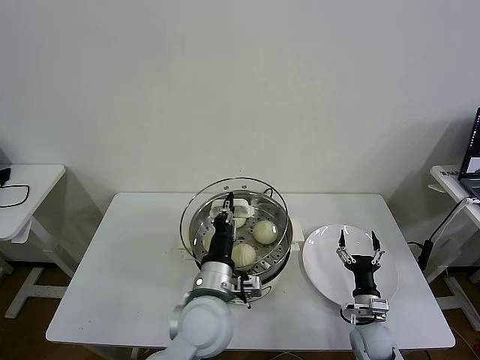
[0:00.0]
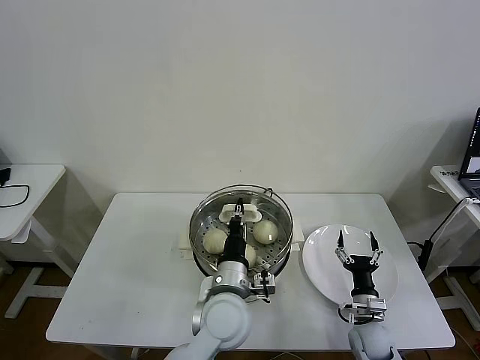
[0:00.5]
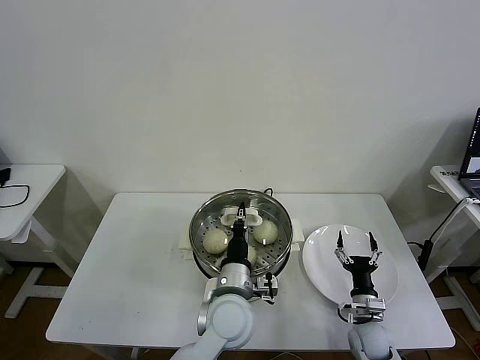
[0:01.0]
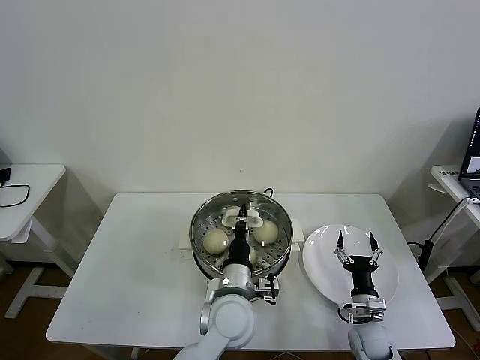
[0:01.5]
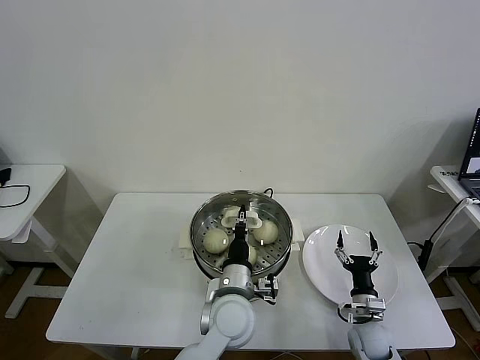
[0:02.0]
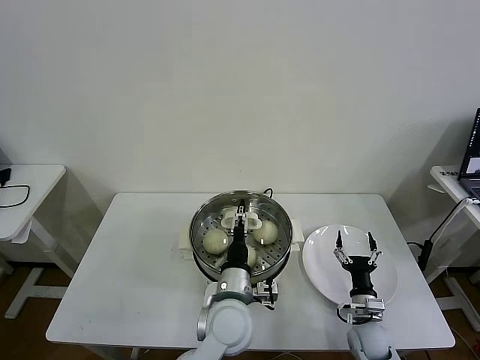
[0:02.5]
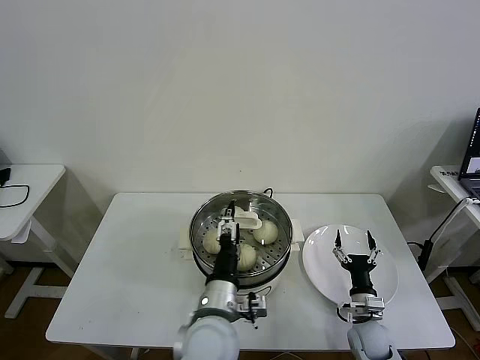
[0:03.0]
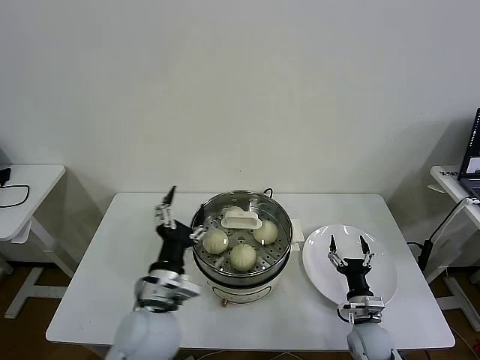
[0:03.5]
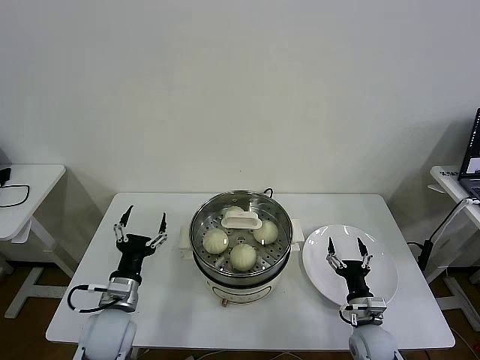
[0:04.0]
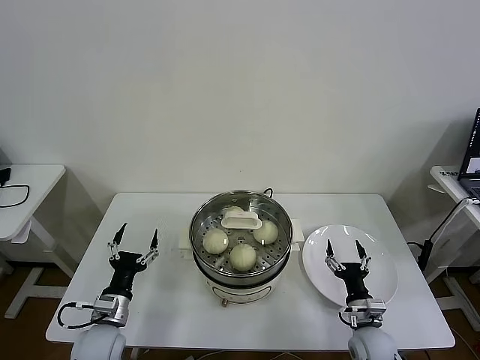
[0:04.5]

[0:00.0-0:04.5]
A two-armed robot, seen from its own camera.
Task of the whole recording: take steamed baozi put them in steamer then cover it.
Step, 0:00.0 to 0:02.5: Place the pot lid on the steamer with left gripper.
0:00.0 to 0:02.0: The left gripper is displaced downward by roughly 5 cm.
0:02.0 to 0:04.5: The left gripper moves to the left, approximately 30 cm, and opens up.
